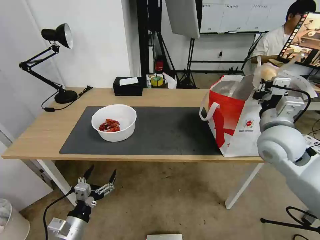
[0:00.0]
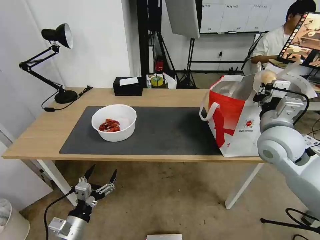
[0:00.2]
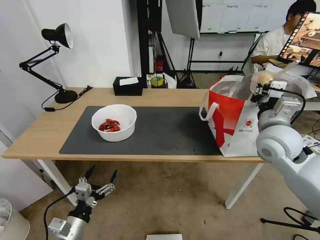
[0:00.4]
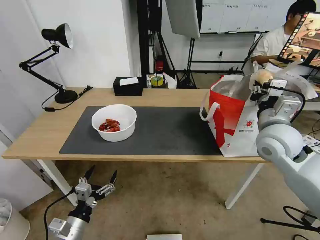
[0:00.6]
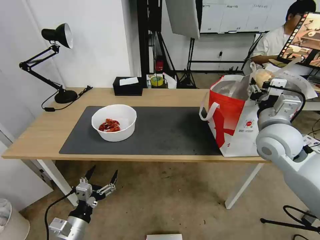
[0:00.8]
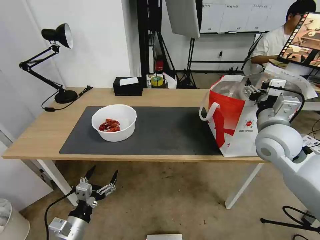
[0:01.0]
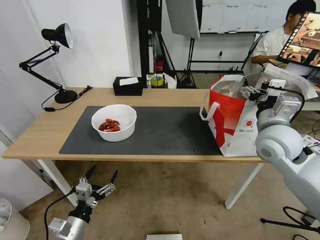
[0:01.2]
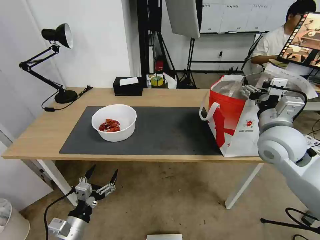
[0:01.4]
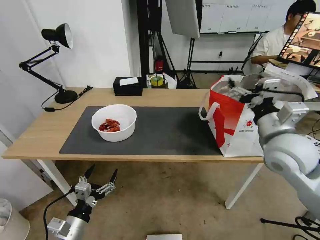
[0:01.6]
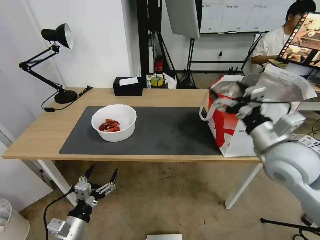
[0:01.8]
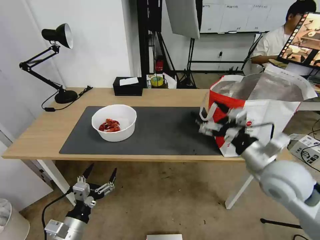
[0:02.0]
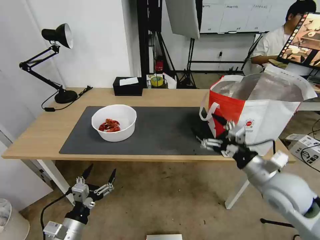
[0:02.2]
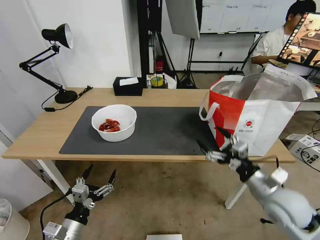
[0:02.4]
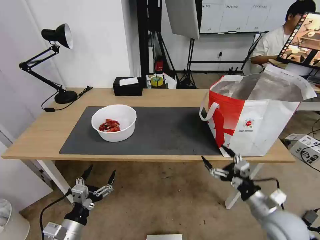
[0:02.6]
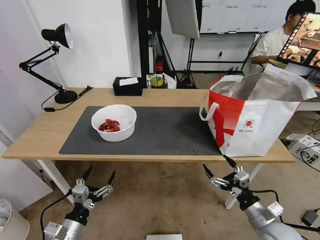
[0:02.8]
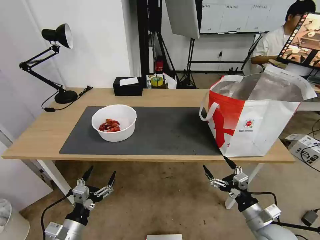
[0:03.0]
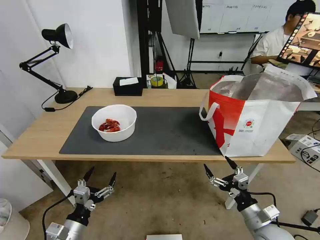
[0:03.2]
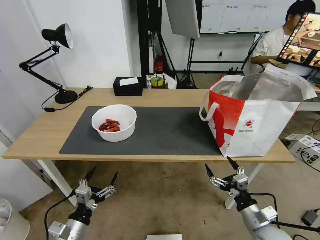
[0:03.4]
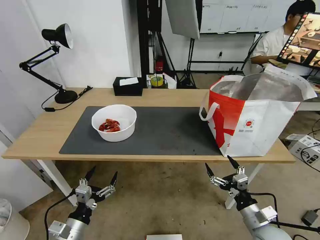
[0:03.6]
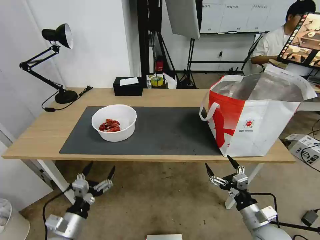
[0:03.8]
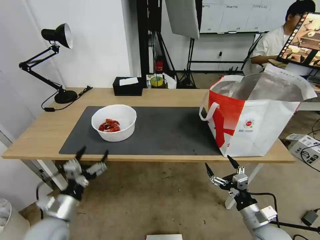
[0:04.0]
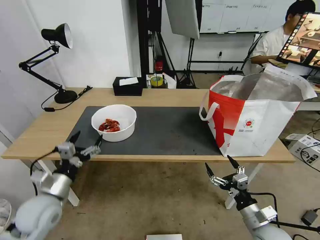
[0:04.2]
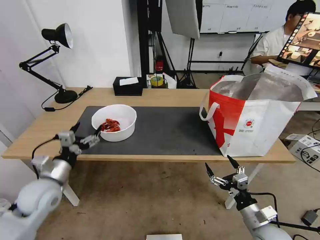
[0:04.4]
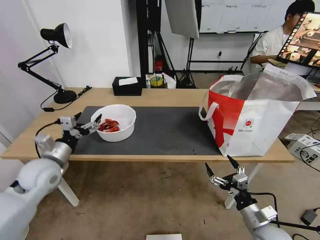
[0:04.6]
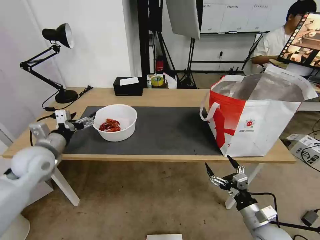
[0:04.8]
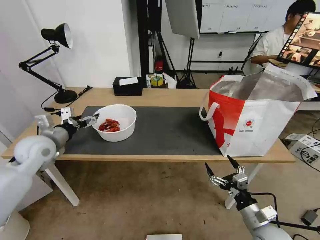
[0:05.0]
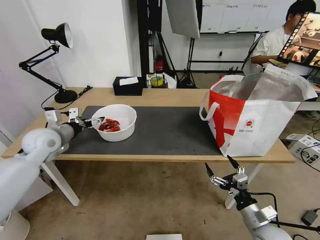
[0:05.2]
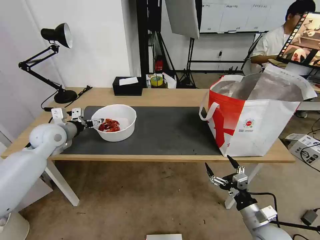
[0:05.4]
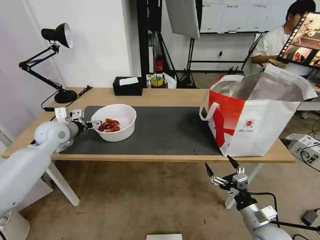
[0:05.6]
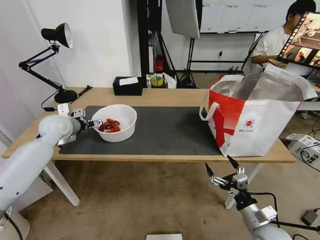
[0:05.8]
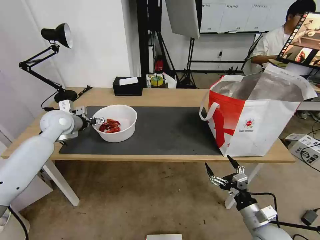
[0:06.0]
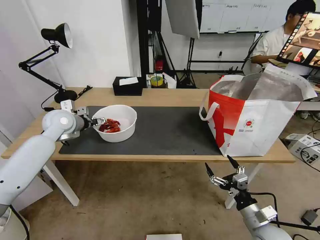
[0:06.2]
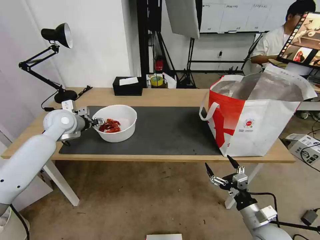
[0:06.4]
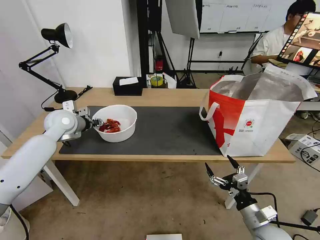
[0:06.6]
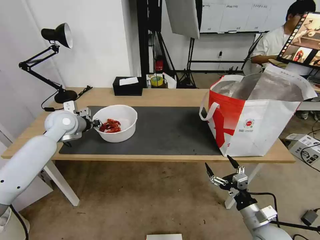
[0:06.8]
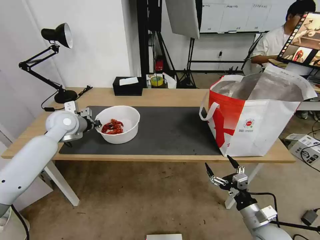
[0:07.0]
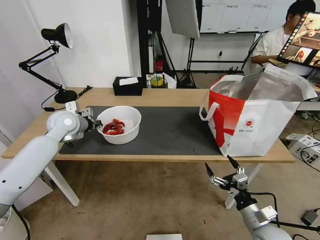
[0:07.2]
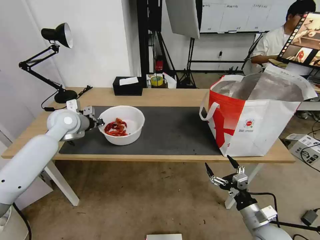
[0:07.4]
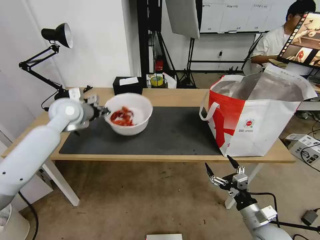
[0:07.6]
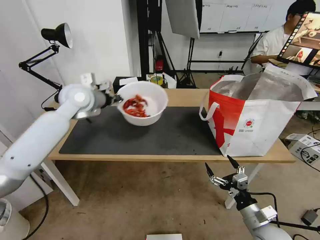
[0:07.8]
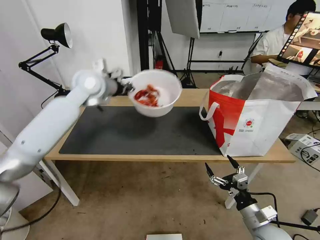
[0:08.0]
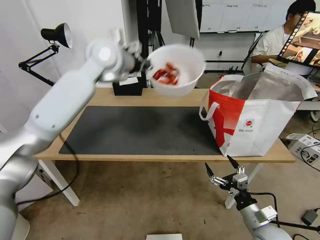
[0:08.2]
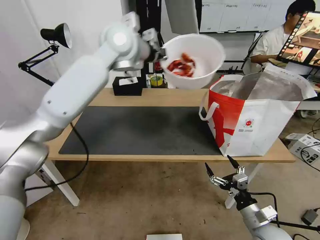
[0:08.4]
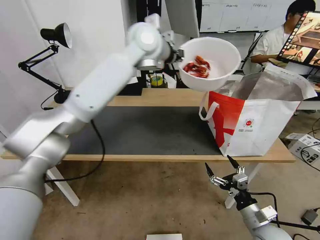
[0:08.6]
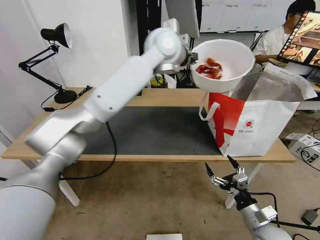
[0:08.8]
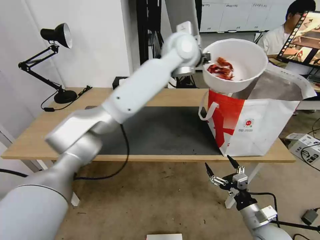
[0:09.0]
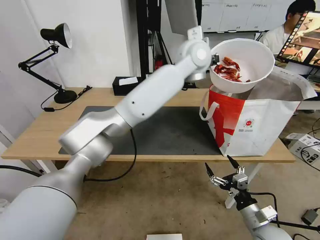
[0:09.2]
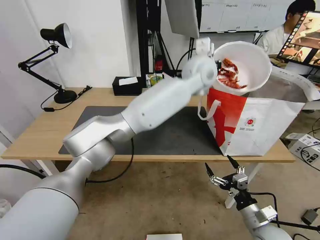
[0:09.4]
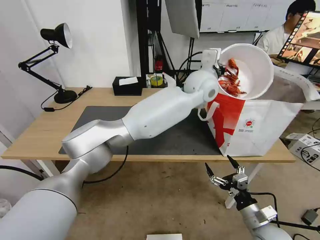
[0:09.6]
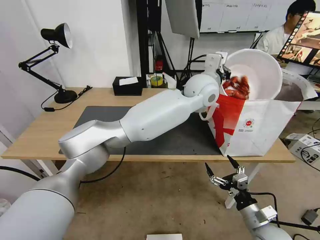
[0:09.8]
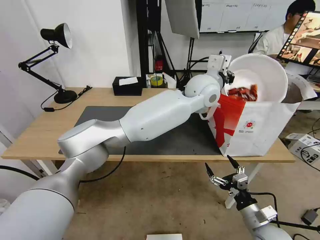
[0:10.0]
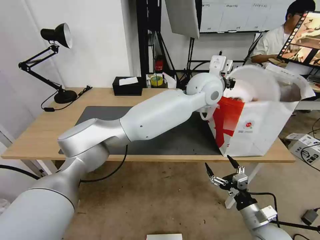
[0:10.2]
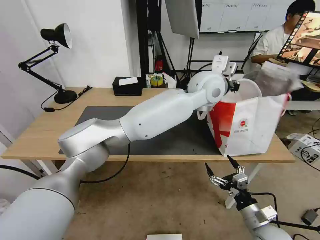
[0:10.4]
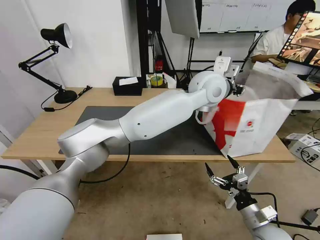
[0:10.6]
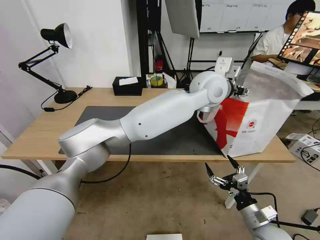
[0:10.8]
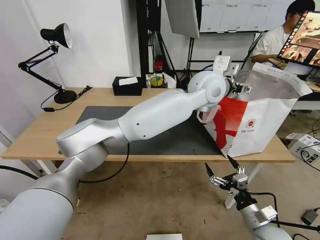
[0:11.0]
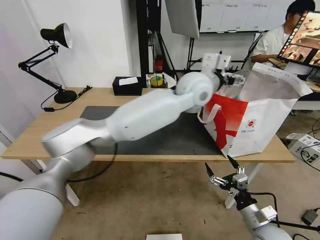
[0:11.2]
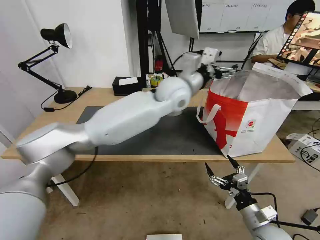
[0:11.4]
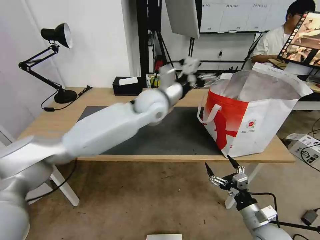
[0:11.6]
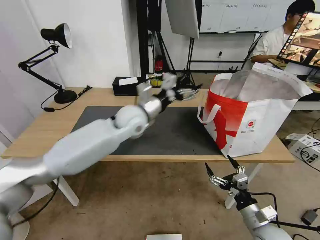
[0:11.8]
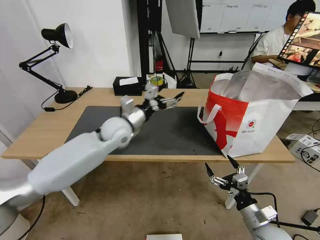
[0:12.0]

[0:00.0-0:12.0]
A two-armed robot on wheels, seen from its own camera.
Task of the whole recording: Pick up the trash from the table and place it into the takeout bag.
0:00.0 to 0:01.6: The right gripper opens its fingers.
0:01.6 to 0:03.0: The right gripper goes approximately 30 cm downward and backward.
0:03.0 to 0:04.4: The left gripper travels forward and upward by about 20 cm.
0:04.4 to 0:06.0: The left gripper shifts about 20 cm forward and upward.
0:06.0 to 0:07.6: The left gripper goes about 10 cm to the right and upward, and closes.
0:07.6 to 0:09.0: The left gripper heads to the right and upward, covering approximately 40 cm.
0:09.0 to 0:10.4: The left gripper travels downward, to the right and backward by some 10 cm.
0:10.4 to 0:12.0: The left gripper is displaced to the left and downward by approximately 30 cm, and opens up.

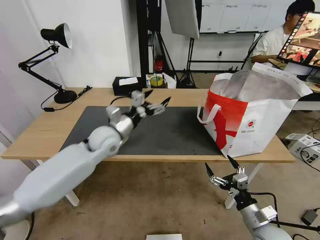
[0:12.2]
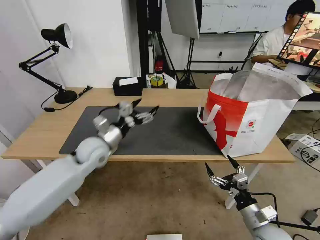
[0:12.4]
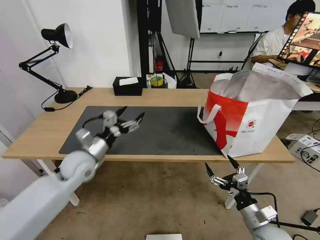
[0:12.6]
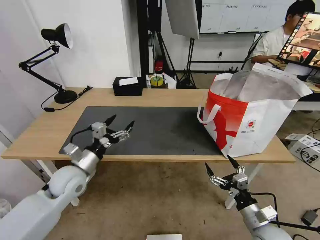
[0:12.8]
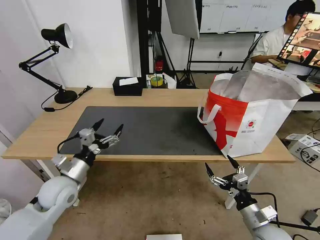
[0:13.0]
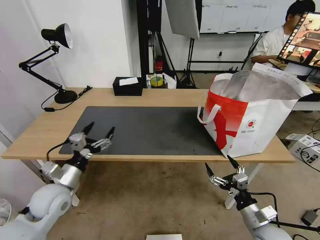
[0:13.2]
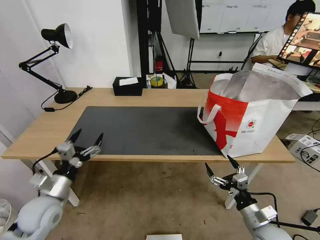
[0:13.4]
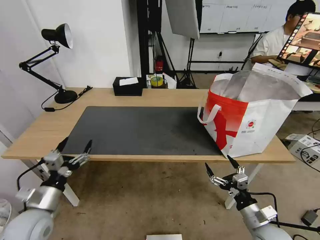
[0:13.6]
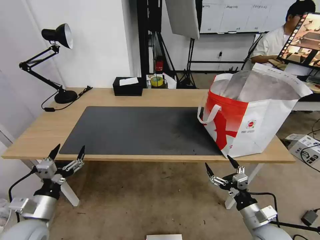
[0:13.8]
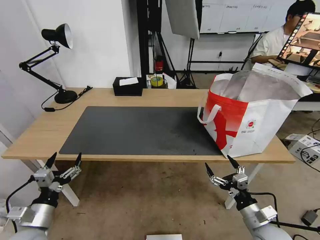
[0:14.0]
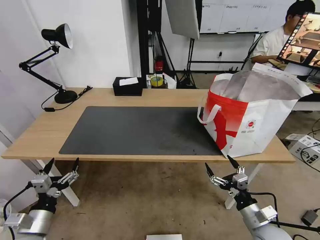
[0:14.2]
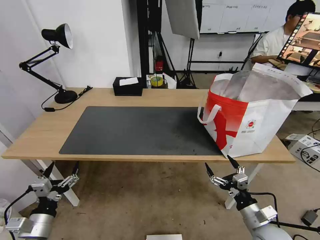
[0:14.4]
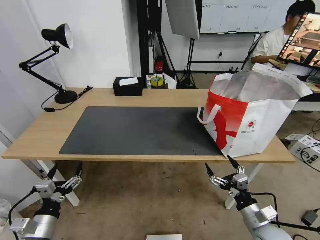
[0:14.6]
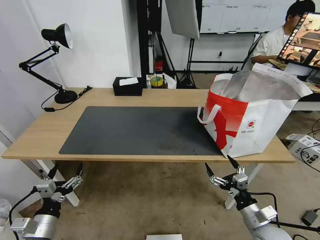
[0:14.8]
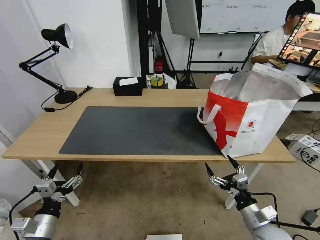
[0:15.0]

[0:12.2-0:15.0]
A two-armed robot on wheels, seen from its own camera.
Task of the whole recording: Pick up the trash from the table and place it into the takeout bag.
0:12.2 to 0:13.6: The left gripper is displaced backward, to the left and downward by roughly 30 cm.
0:13.6 to 0:15.0: The left gripper travels backward and downward by about 10 cm.
